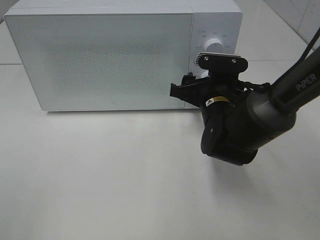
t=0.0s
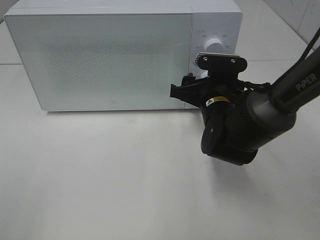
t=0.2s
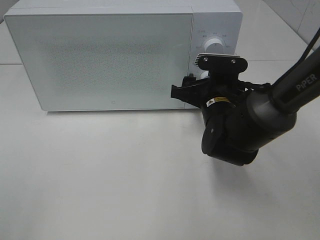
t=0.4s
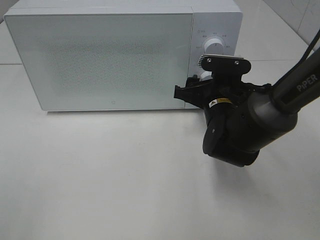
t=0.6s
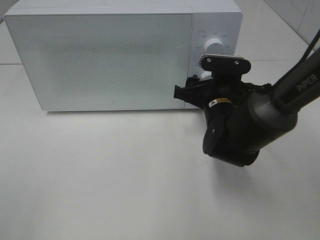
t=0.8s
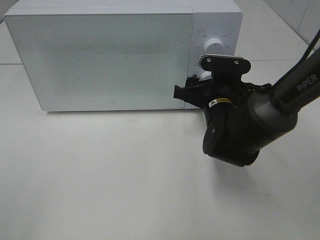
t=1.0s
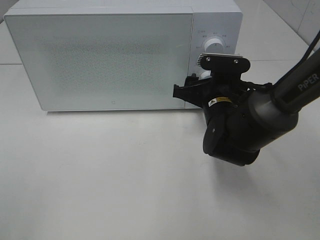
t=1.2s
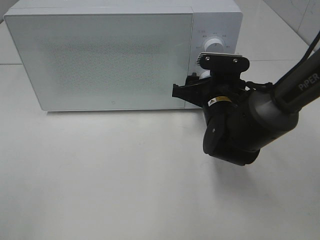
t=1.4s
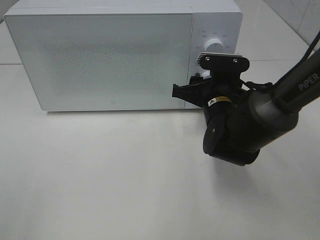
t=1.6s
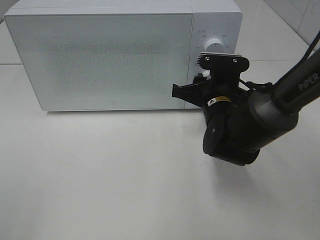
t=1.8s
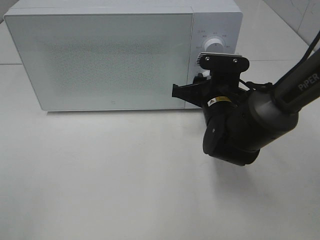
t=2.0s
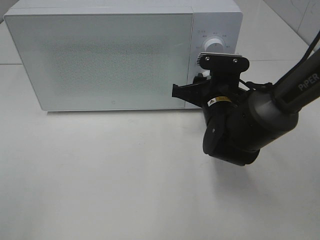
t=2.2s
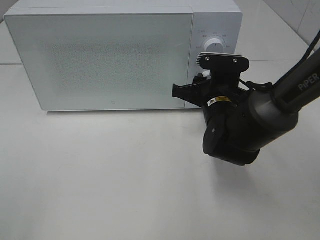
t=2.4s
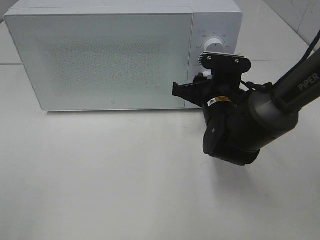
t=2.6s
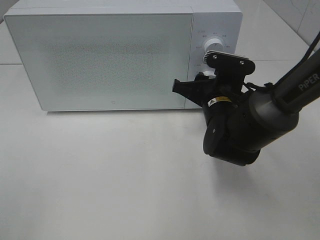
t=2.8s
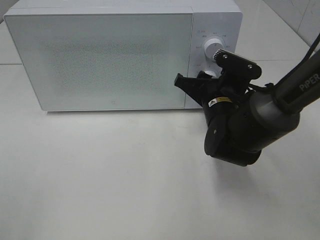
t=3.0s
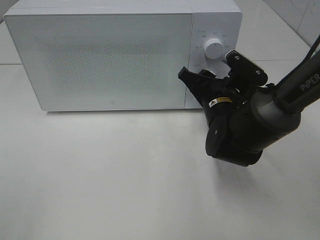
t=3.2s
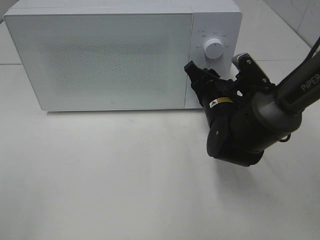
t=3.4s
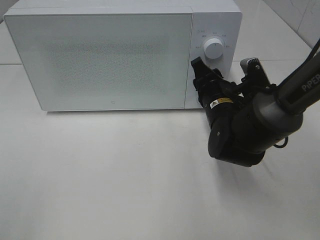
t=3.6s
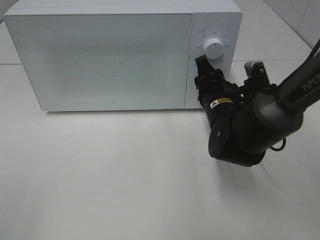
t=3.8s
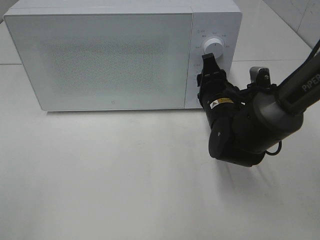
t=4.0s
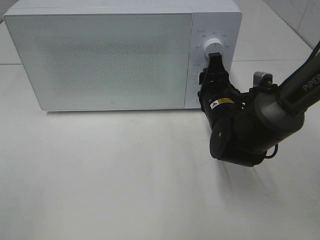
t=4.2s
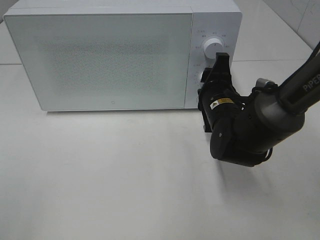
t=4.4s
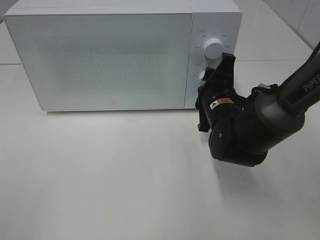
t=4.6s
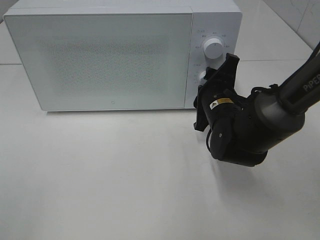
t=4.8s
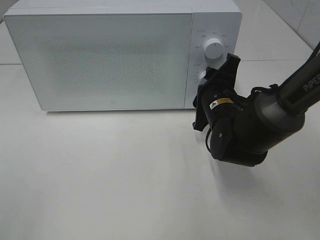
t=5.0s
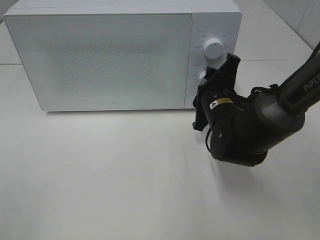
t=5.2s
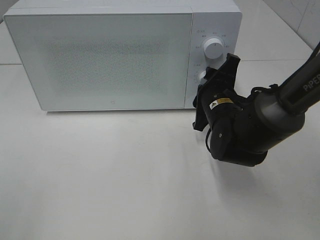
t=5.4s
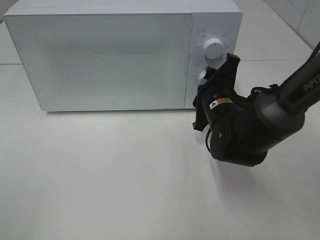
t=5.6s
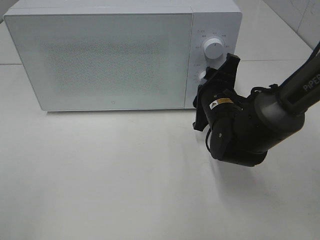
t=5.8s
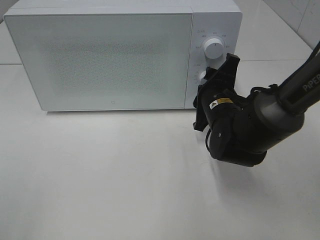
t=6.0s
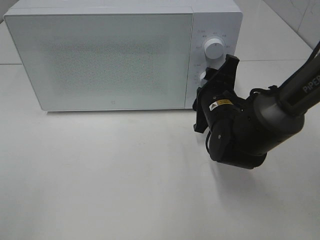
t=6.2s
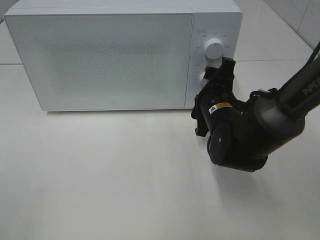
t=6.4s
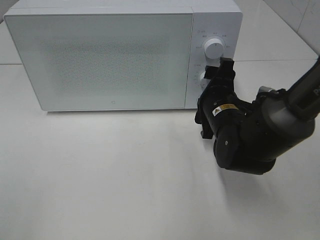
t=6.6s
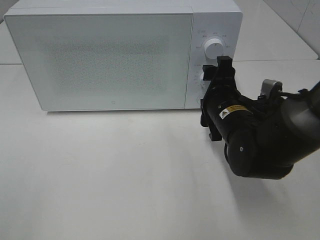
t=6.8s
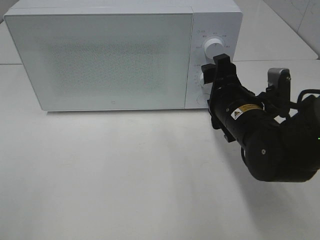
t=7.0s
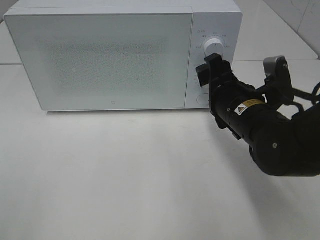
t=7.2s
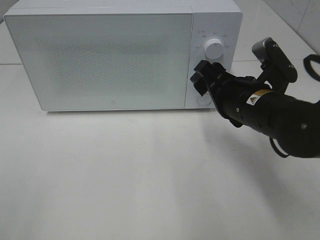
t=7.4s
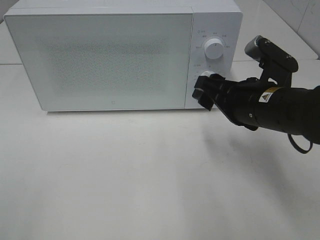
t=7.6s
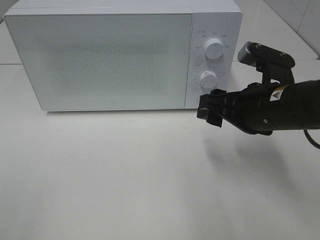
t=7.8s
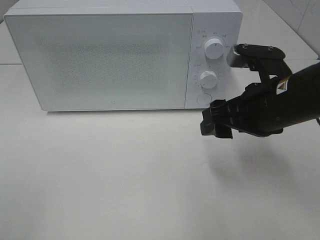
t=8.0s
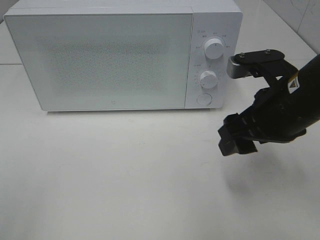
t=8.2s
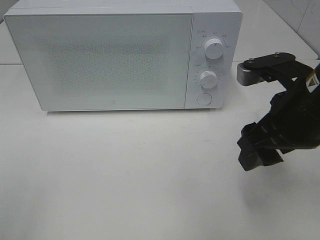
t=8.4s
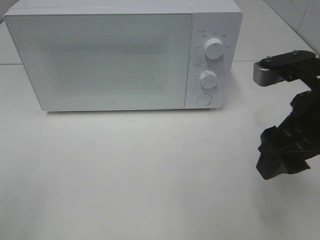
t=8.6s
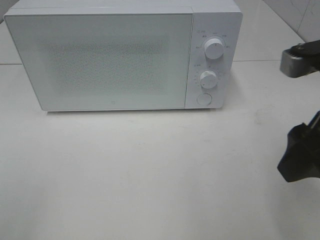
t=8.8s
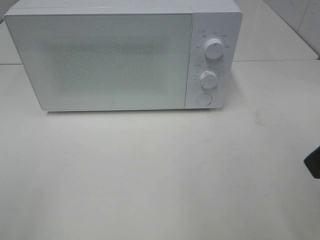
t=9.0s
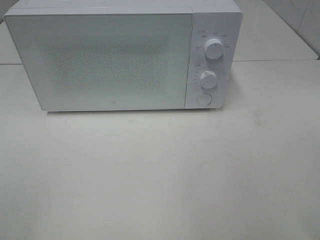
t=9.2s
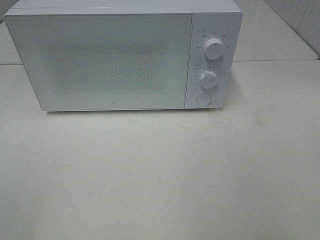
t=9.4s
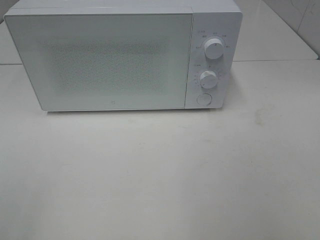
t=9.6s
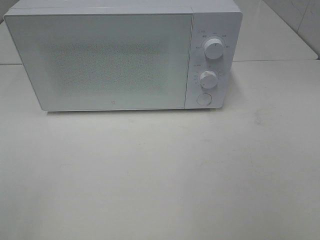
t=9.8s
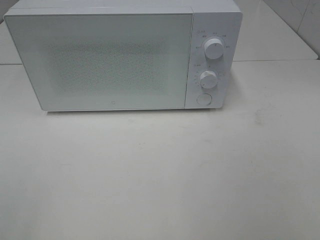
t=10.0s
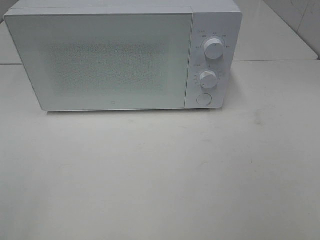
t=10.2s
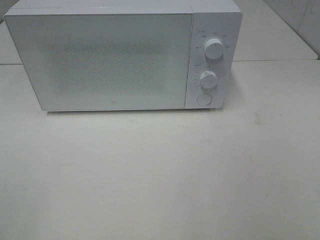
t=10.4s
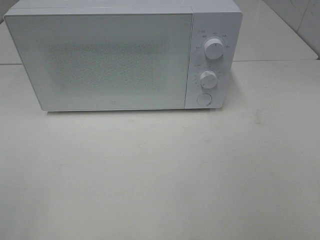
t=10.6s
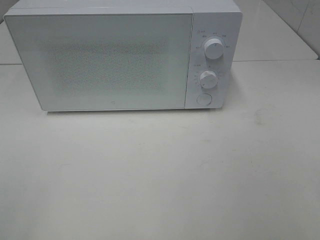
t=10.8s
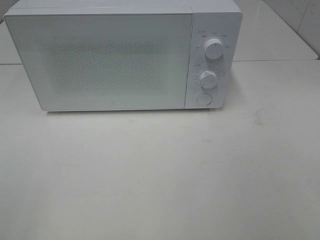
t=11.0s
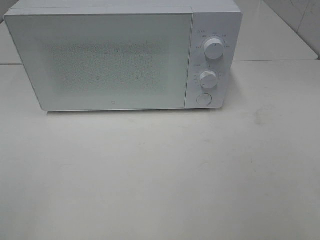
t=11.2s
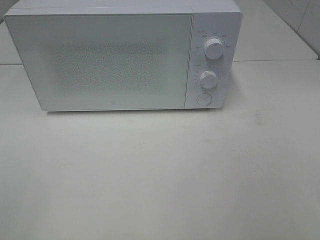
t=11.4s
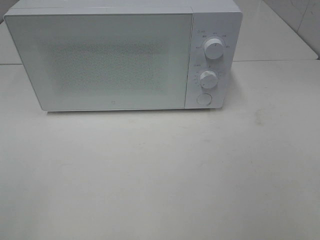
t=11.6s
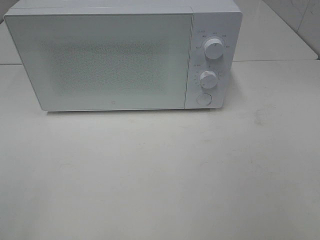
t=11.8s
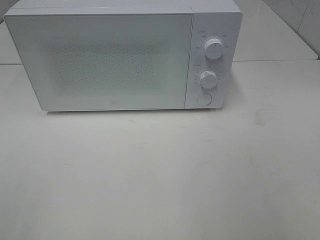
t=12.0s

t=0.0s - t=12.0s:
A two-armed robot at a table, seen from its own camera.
Task of the whole recording: Heat the burger.
Step, t=0.0s - t=6.6s: Right hand: twist timer button.
t=0.0s - t=1.6s: Neither gripper changes place.
t=1.6s - t=3.0s: The grippers move only a little.
t=4.4s - t=6.0s: The grippers make only small movements.
t=6.0s - t=7.6s: The right gripper shifts roughly 10 cm backward and upward.
t=7.6s - t=9.0s: The right gripper moves backward, upward and to the right, approximately 20 cm.

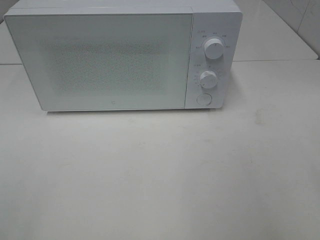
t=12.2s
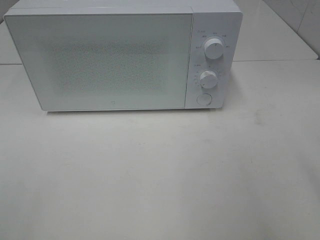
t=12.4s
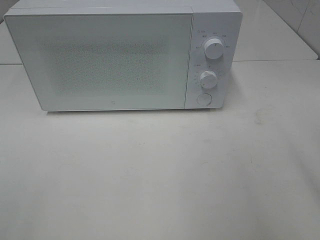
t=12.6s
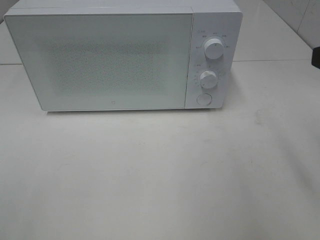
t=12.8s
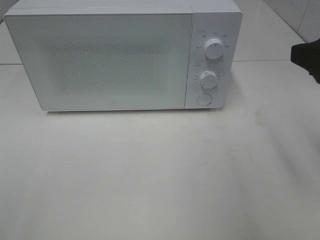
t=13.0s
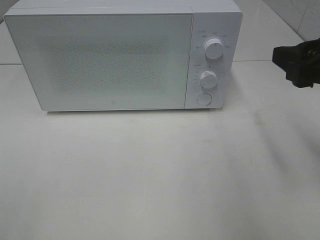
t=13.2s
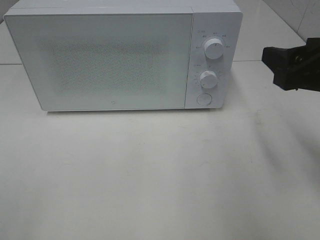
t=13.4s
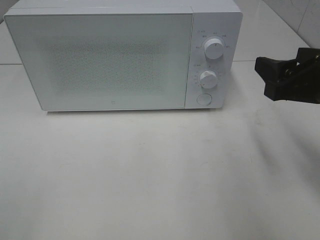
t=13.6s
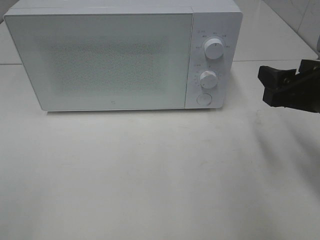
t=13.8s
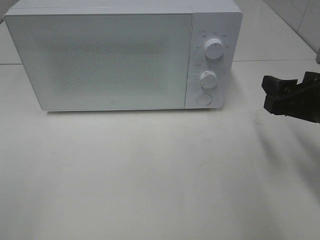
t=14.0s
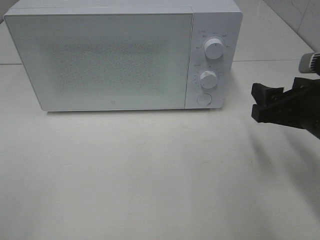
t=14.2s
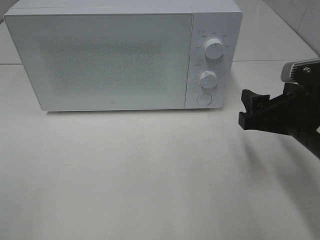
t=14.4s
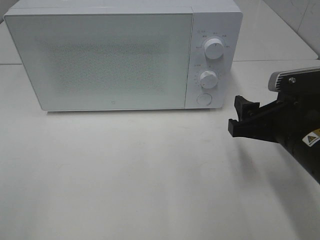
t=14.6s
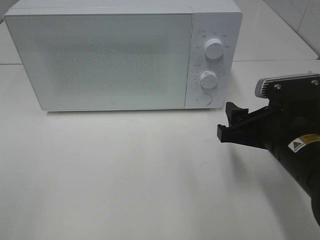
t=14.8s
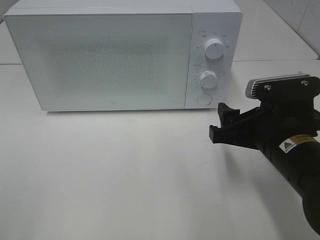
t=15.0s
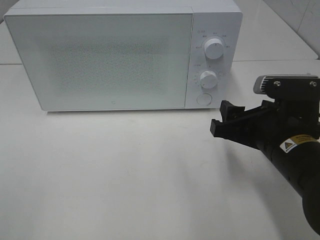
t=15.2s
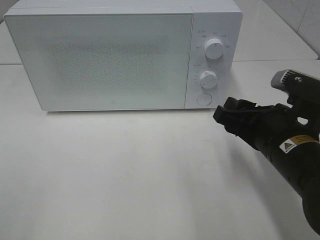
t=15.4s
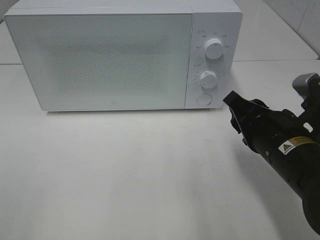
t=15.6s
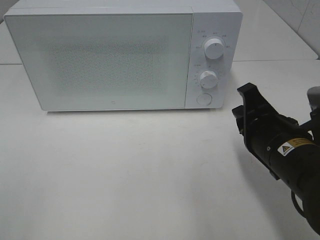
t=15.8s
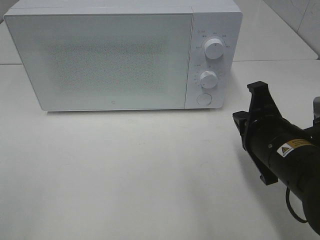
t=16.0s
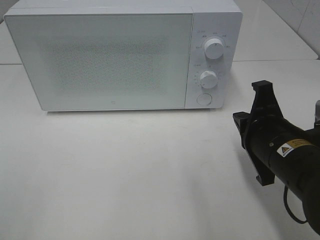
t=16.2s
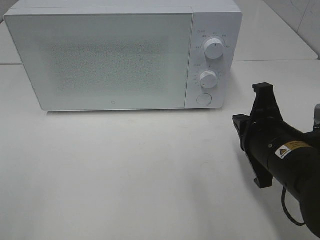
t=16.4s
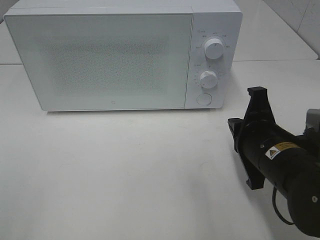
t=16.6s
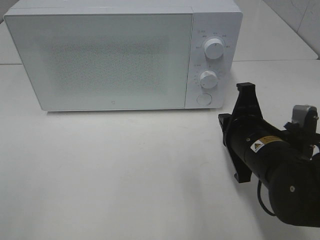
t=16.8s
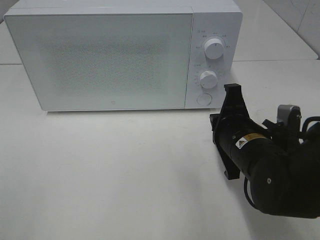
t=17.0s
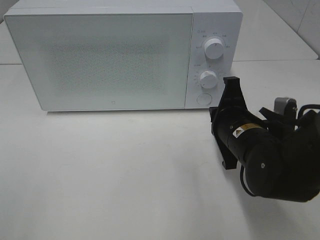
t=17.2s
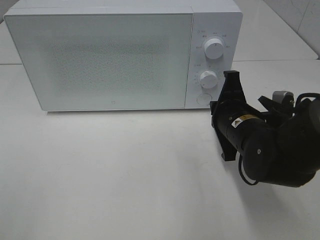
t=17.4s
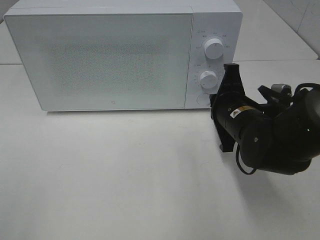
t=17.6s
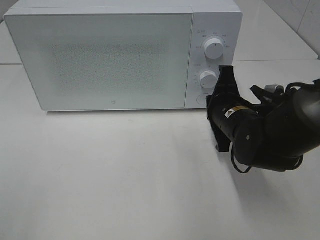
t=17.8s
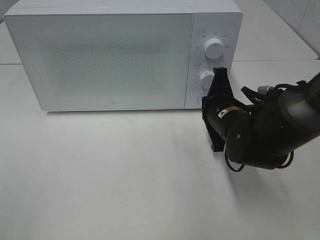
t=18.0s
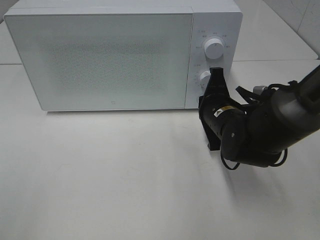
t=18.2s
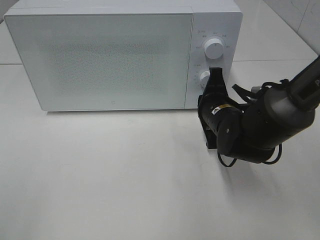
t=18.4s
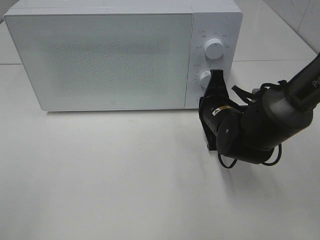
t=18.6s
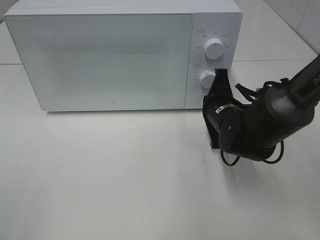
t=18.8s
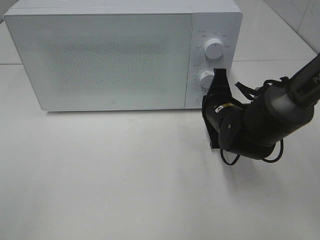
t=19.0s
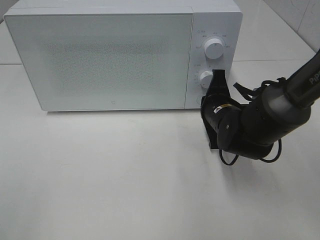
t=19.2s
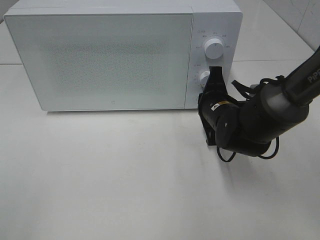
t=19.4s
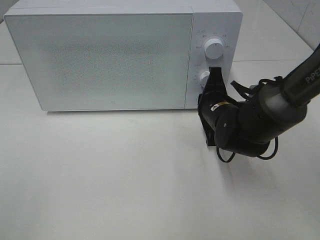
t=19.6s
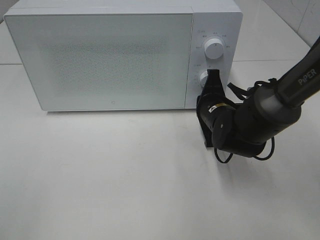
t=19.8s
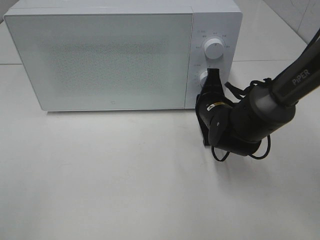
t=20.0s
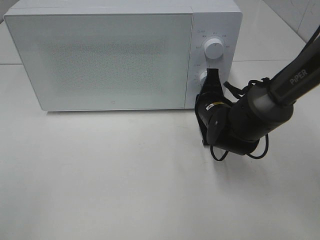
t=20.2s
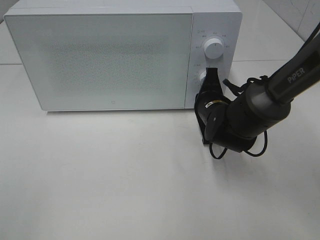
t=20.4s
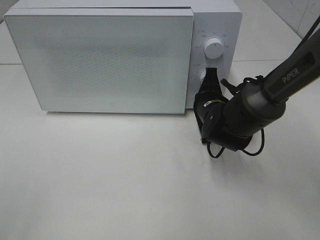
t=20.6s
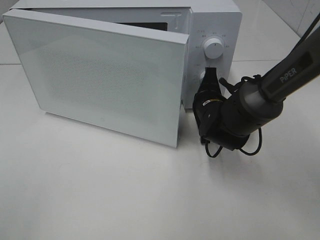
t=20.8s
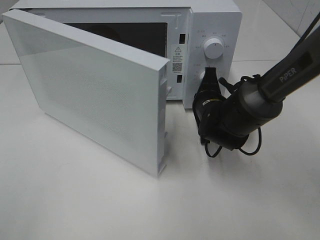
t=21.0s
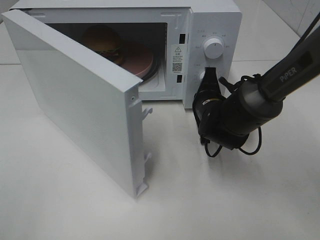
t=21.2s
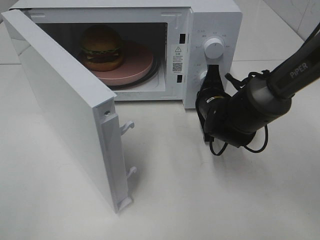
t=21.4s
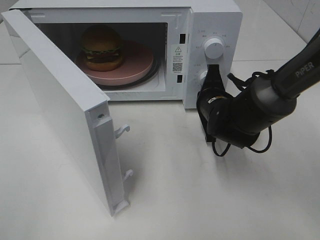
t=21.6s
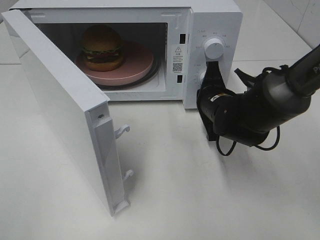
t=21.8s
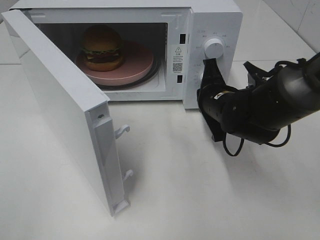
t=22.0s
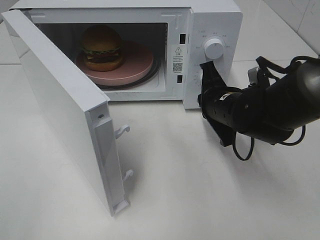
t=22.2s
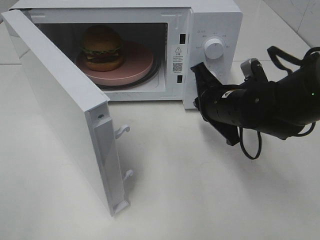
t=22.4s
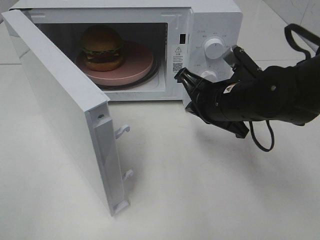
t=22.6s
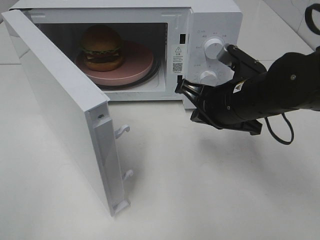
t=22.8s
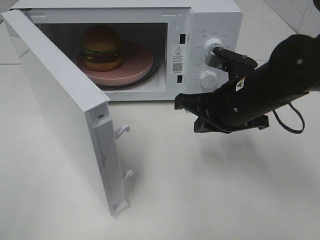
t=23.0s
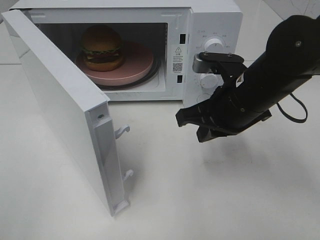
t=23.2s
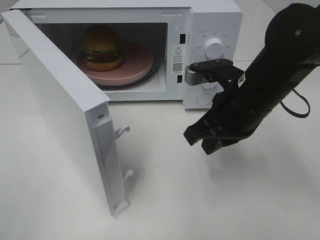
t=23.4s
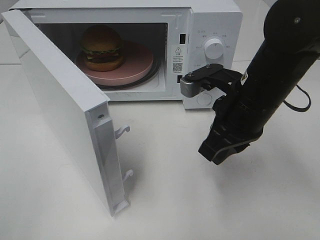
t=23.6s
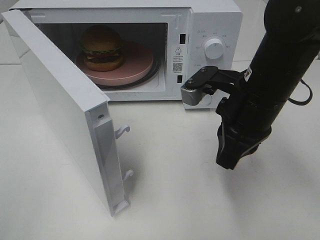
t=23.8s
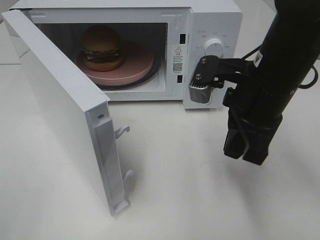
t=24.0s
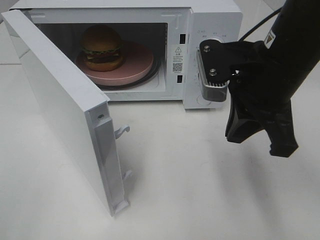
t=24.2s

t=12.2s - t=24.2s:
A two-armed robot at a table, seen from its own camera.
Task of the whole recording: Heat the burger.
Step, t=12.2s - t=22.0s: Right hand: press the switch.
t=12.2s - t=13.8s: The right gripper is displaced forward and downward by approximately 20 cm.
t=13.8s - t=15.2s: The right gripper shifts some 10 cm to the left and downward.
t=15.2s - t=16.6s: The right gripper closes its fingers.
t=16.6s - t=18.2s: The right gripper goes approximately 10 cm forward.
t=18.2s - t=19.8s: The grippers move only a little.
t=21.2s - t=22.6s: The right gripper is displaced upward and backward by approximately 10 cm.
t=22.6s - t=24.2s: The right gripper moves upward and backward, some 10 cm.
